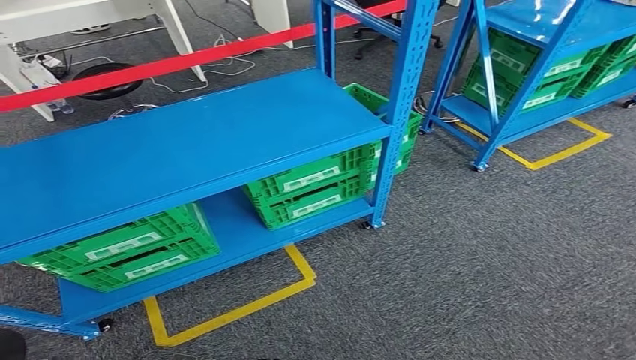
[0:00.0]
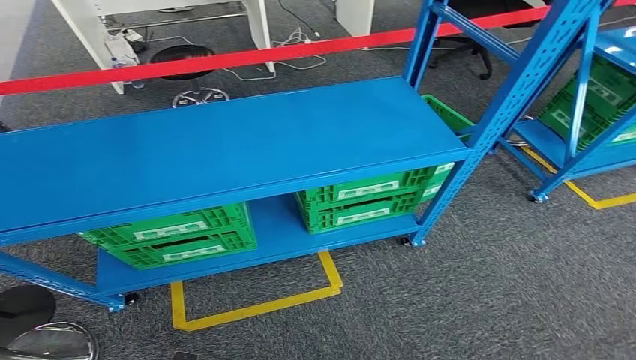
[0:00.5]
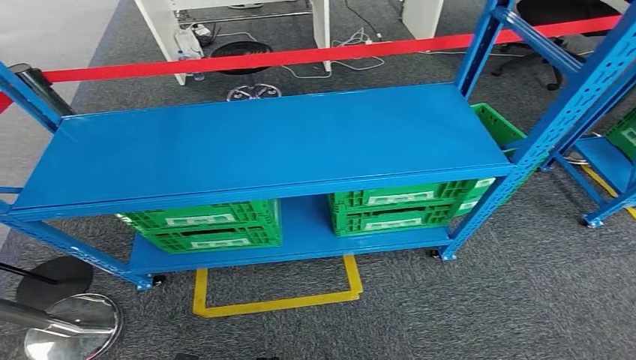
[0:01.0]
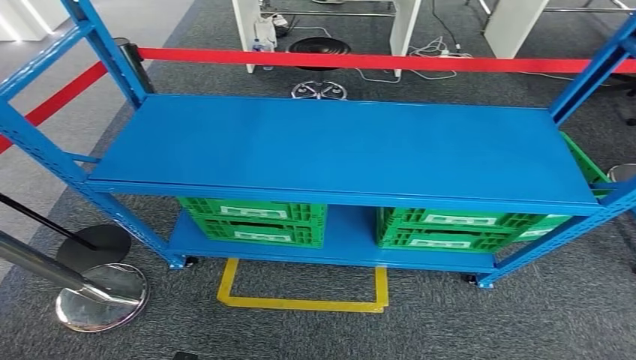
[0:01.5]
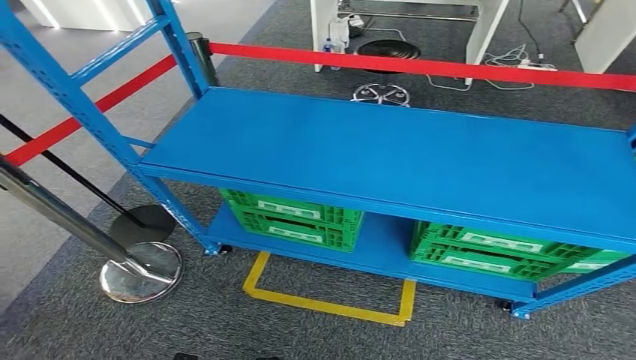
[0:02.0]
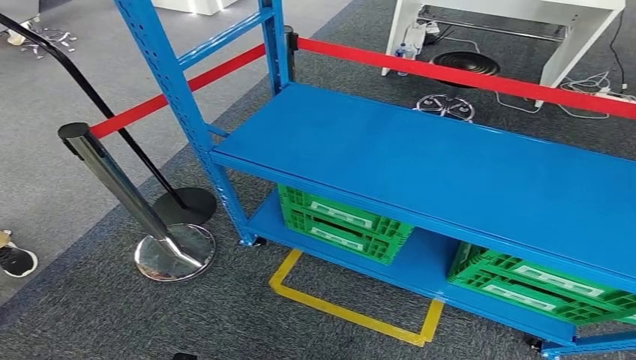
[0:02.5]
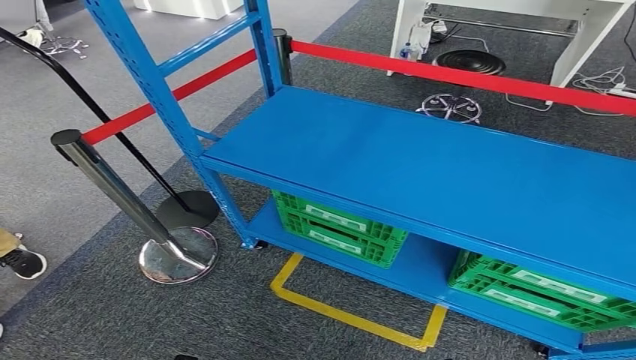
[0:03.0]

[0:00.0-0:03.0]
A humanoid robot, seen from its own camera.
Step, 0:00.0 to 0:02.5: Move to the initial position at the workbench.
